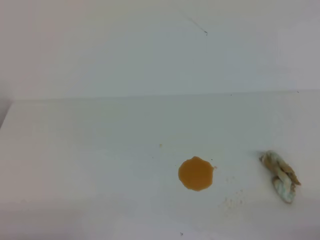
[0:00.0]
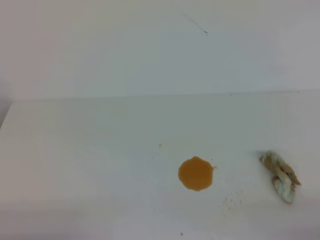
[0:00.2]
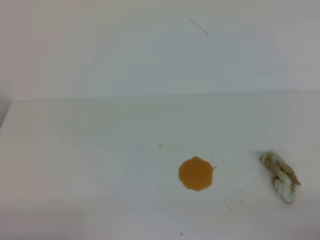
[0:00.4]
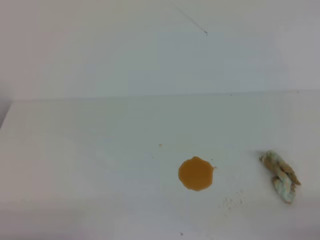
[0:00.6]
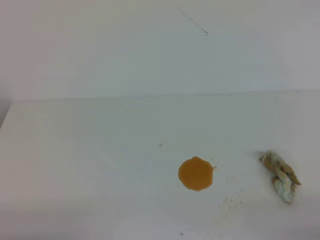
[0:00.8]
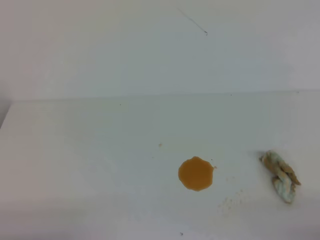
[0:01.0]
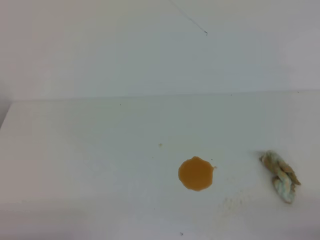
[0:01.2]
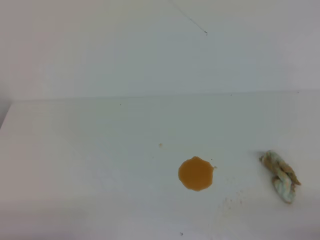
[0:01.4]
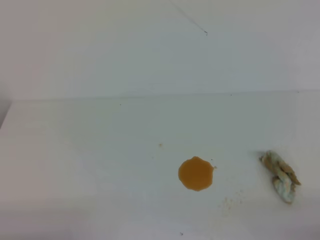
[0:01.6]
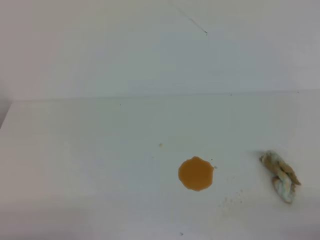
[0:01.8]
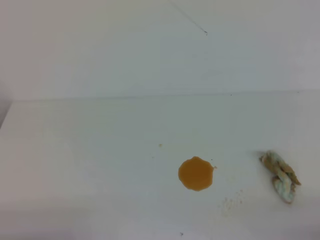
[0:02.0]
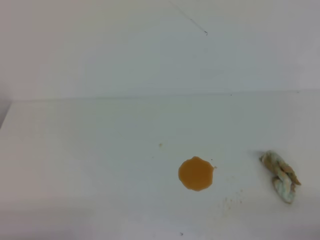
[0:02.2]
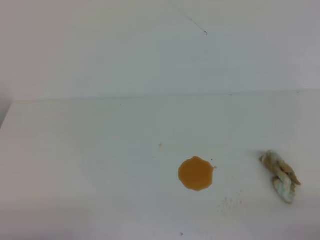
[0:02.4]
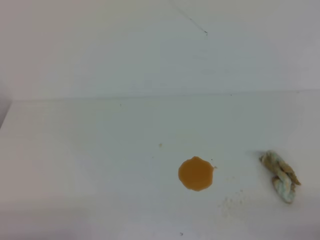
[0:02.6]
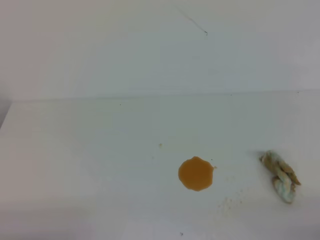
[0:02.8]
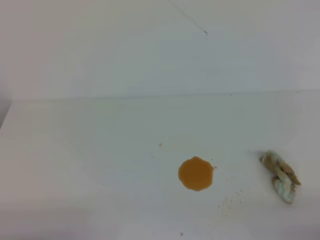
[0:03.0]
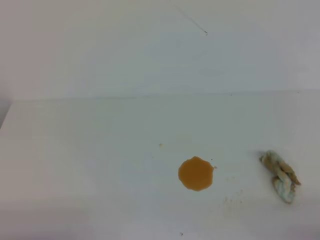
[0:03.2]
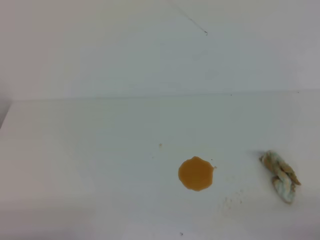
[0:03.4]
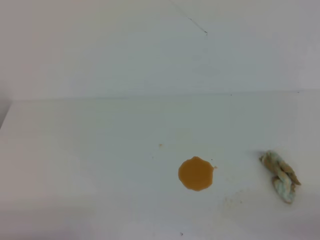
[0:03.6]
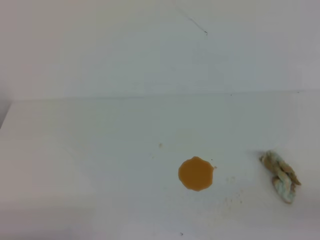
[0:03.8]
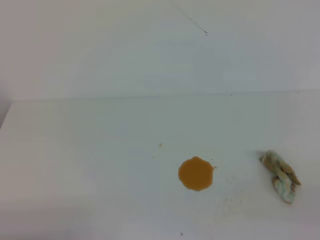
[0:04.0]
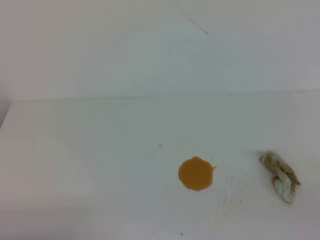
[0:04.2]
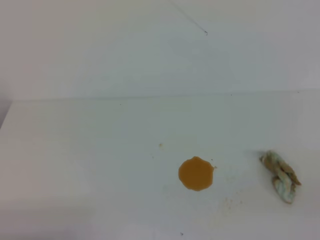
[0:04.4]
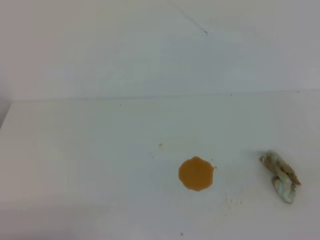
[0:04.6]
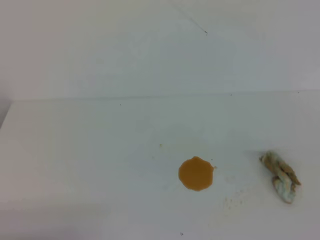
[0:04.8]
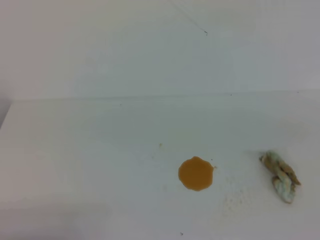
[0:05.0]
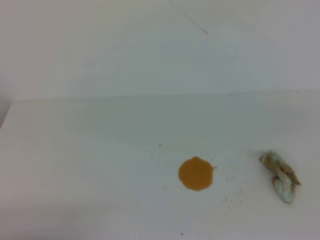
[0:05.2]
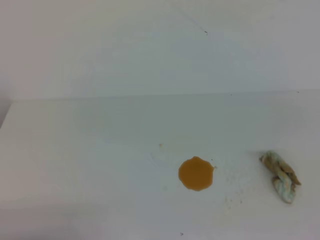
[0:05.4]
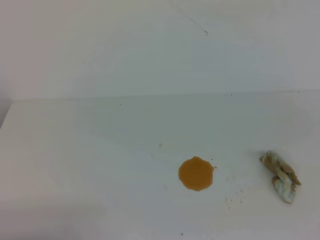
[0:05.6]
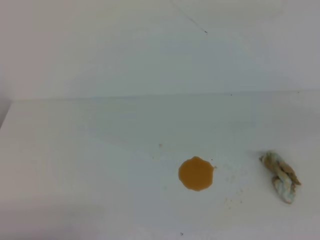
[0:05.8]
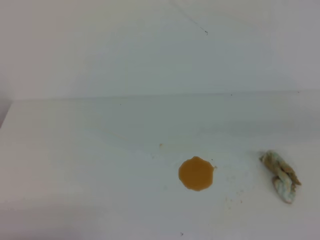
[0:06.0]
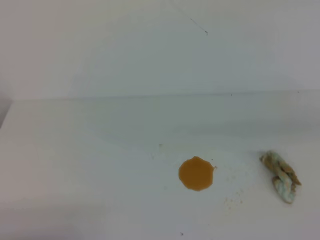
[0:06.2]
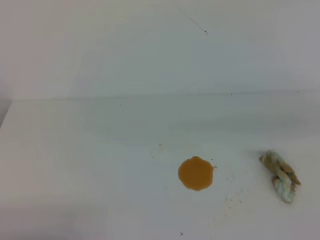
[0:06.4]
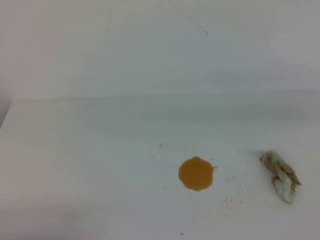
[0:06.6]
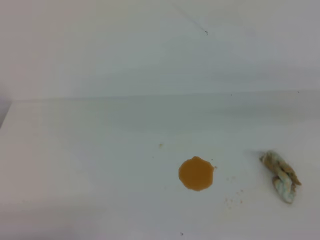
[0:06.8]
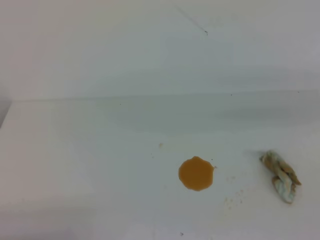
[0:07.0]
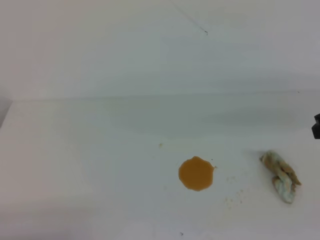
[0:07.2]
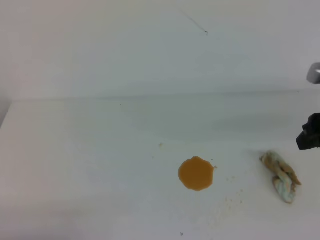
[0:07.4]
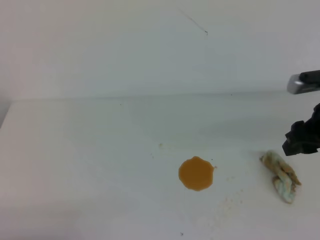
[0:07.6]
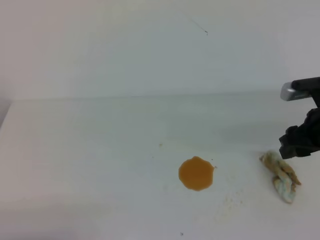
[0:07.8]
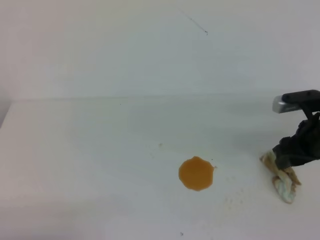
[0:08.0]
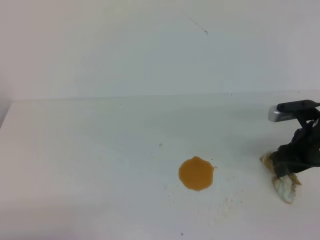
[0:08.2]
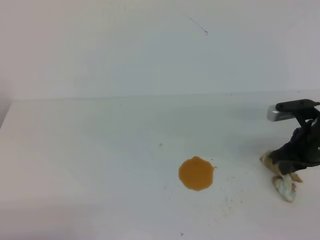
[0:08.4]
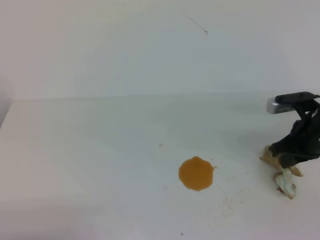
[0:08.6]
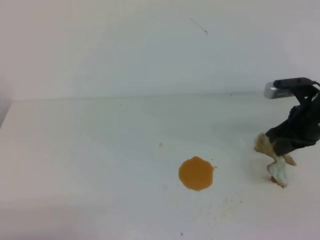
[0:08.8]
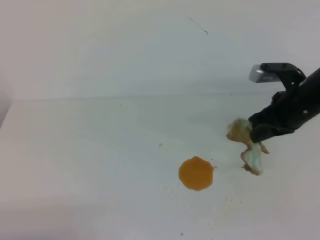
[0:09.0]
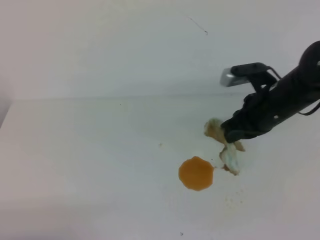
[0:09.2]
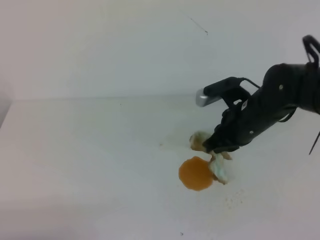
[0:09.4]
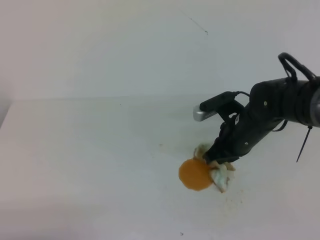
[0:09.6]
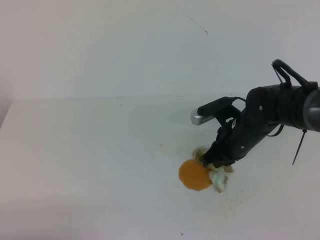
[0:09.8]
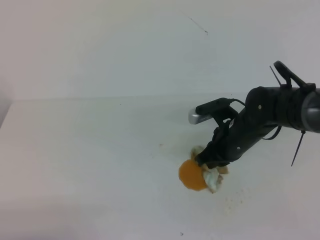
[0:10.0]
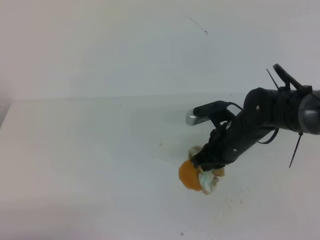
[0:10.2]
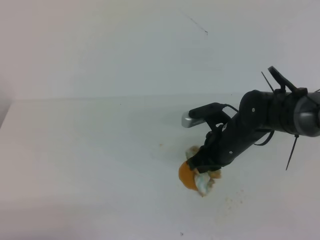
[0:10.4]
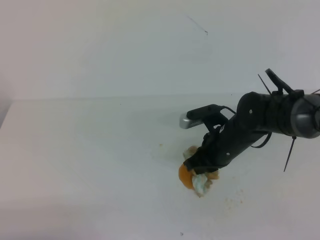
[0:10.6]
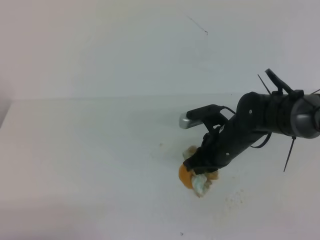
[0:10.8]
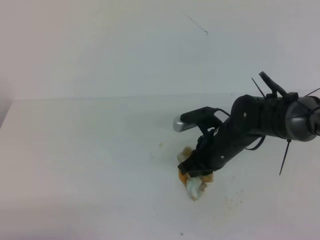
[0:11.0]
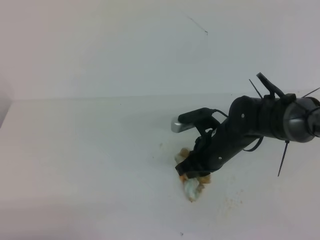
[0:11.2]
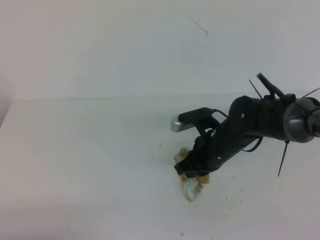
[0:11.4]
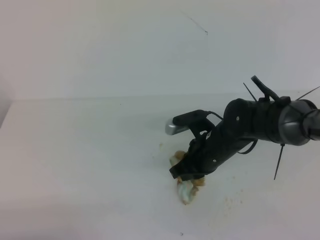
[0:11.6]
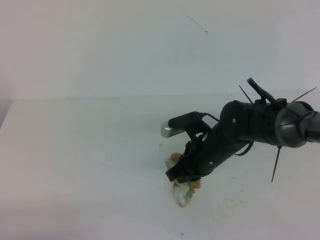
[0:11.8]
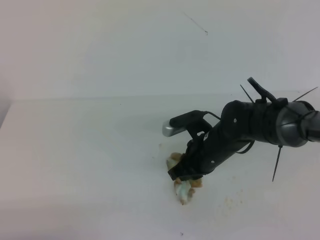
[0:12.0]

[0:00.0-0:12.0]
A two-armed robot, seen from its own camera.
0.0 to 3.0 s: Both grippers stay about where they are.
6.0 to 7.6 s: The right gripper travels forward and downward by approximately 20 cm, and opens up.
7.6 to 9.0 s: The right gripper goes some 5 cm to the left, and closes up.
9.0 to 10.4 s: The right gripper moves to the left and downward, about 15 cm.
10.4 to 12.0 s: The grippers stay close to where they were, moving slightly.

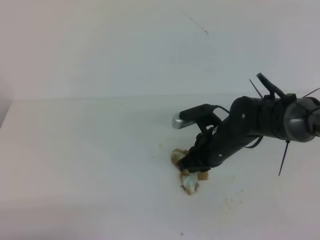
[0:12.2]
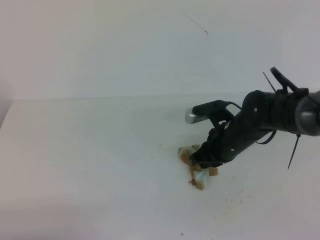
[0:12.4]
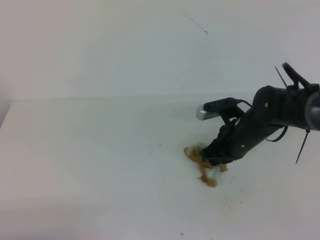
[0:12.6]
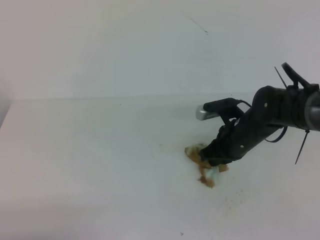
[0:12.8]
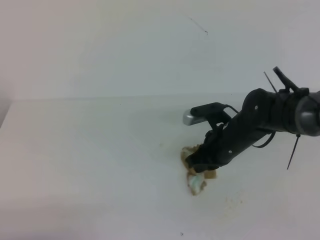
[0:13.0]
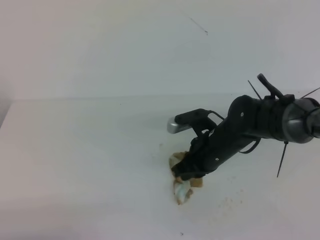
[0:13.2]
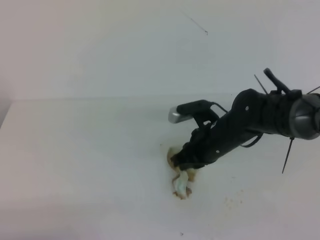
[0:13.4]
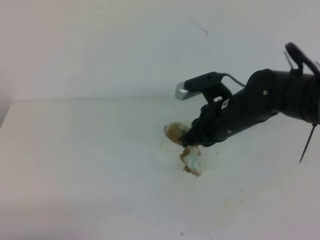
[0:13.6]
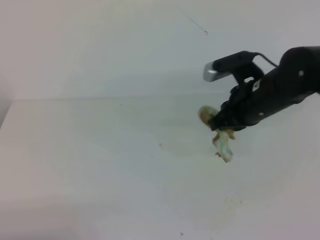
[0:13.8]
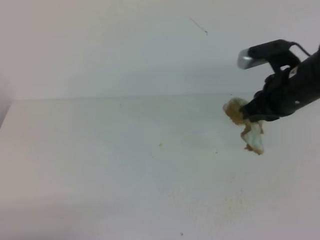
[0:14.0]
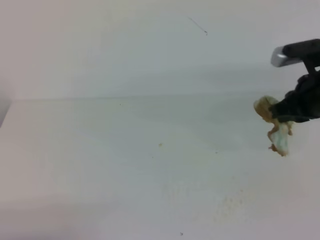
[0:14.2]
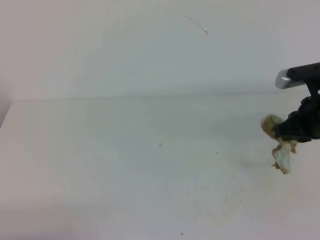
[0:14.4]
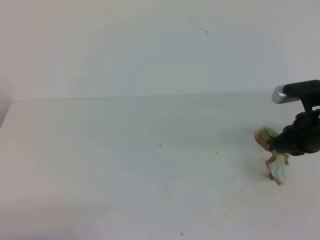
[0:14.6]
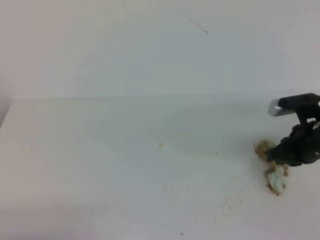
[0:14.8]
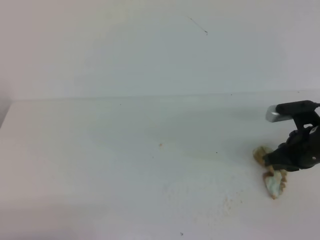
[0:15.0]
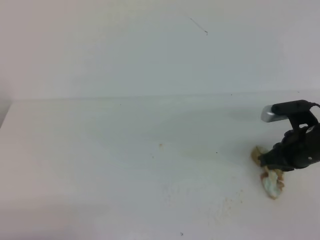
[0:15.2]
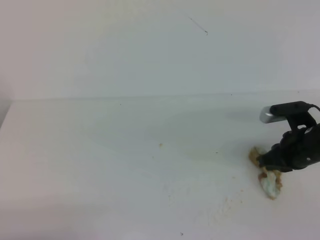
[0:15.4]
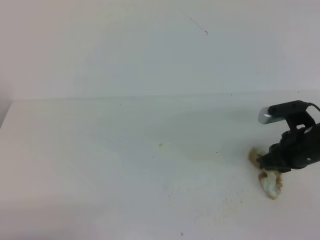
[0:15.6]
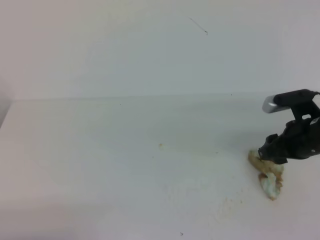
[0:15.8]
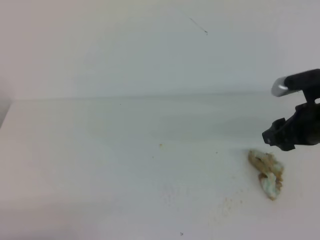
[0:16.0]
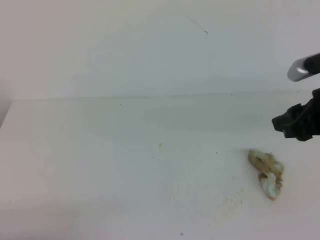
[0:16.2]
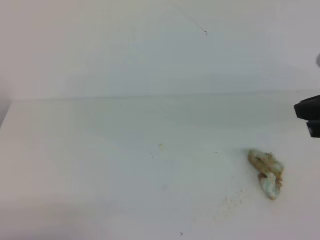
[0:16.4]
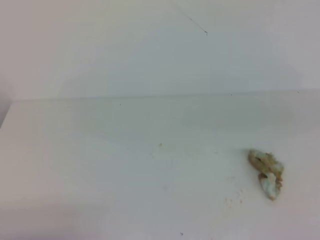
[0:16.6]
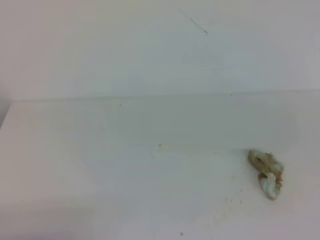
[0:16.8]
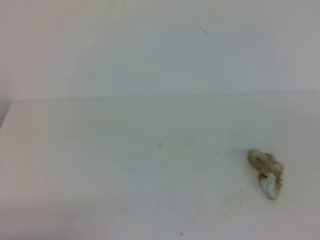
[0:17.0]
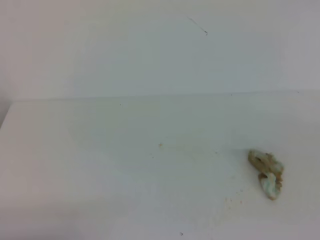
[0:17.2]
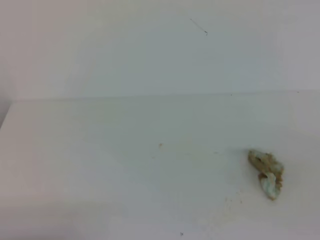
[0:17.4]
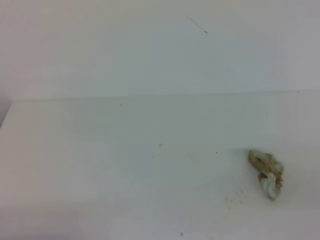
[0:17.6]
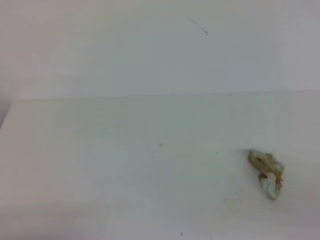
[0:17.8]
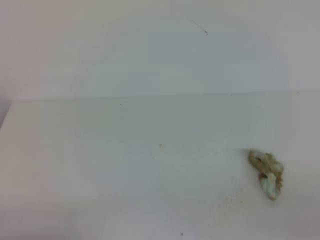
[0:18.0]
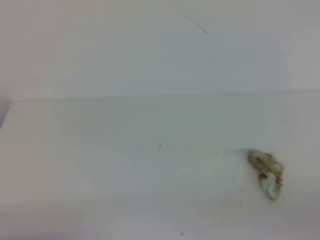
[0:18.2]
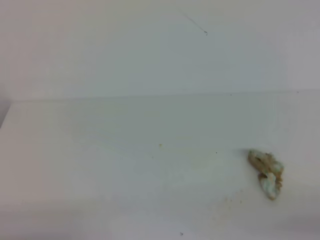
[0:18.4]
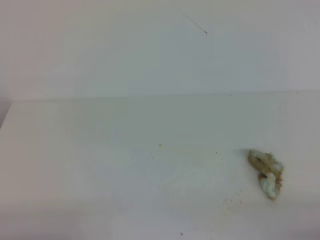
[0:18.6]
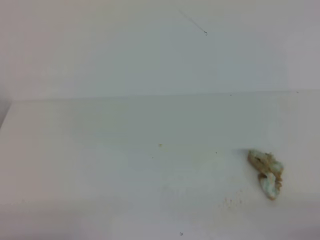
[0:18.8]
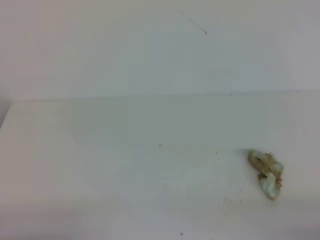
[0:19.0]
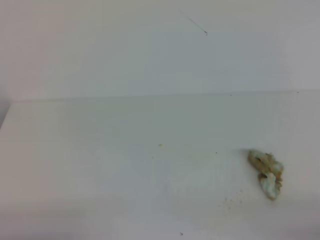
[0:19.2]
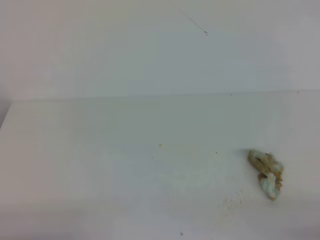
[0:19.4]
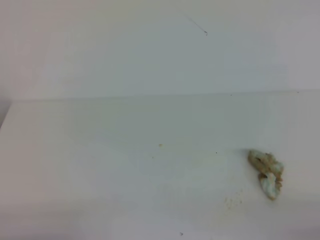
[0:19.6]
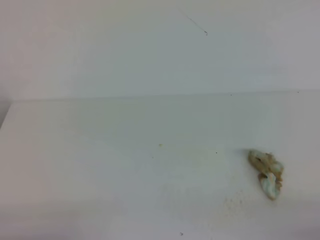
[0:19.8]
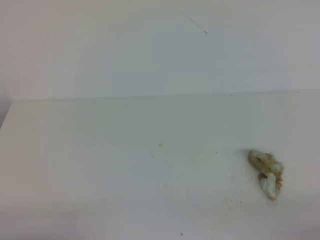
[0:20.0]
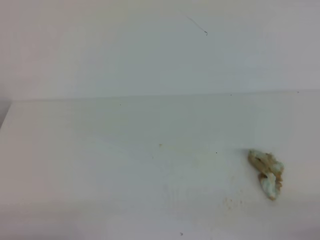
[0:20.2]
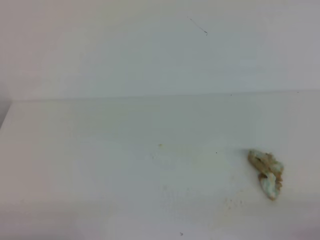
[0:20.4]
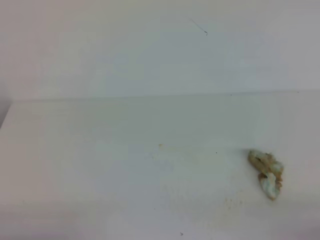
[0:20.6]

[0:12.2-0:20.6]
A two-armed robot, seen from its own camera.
12.2 to 13.6 s: The right gripper goes approximately 5 cm upward.
13.6 to 15.0 s: The right gripper moves to the right, some 15 cm.
15.0 to 16.4 s: The right gripper heads upward and backward, covering roughly 20 cm, and opens, then closes once more.
16.4 to 17.8 s: The right gripper shifts approximately 20 cm backward and downward.
19.2 to 20.6 s: Both grippers stay put.

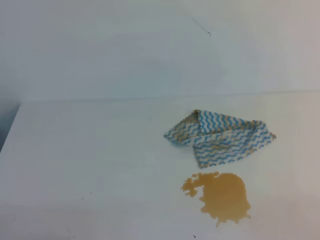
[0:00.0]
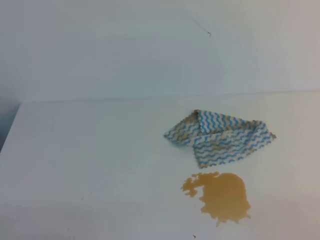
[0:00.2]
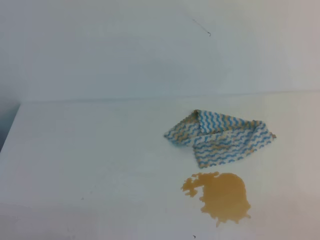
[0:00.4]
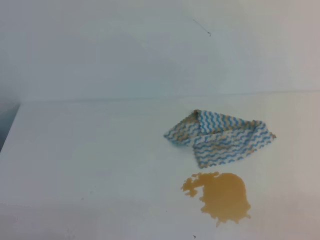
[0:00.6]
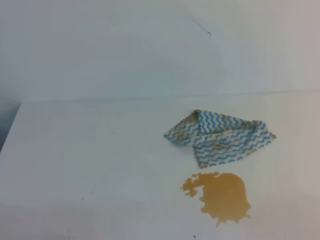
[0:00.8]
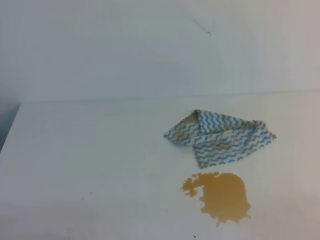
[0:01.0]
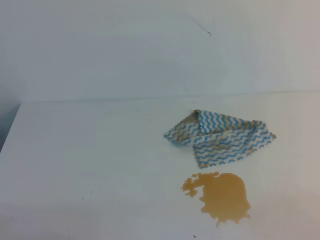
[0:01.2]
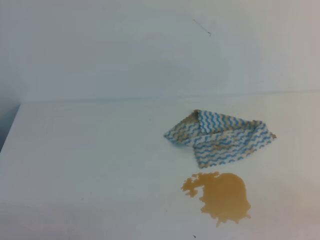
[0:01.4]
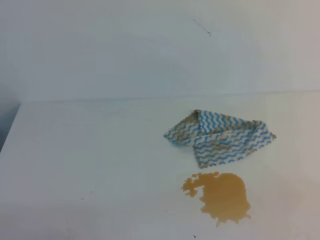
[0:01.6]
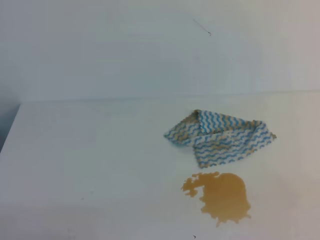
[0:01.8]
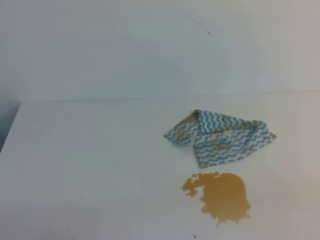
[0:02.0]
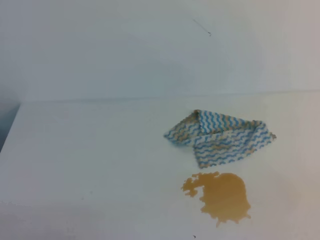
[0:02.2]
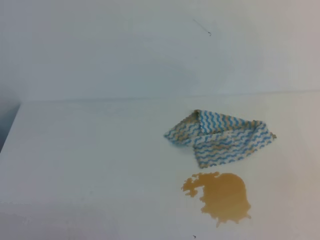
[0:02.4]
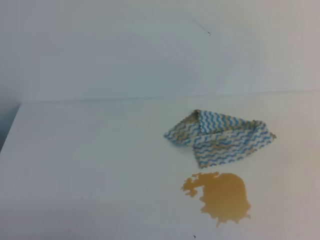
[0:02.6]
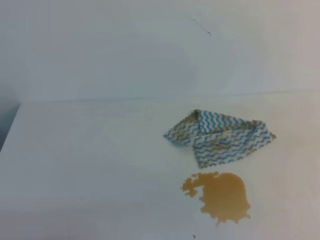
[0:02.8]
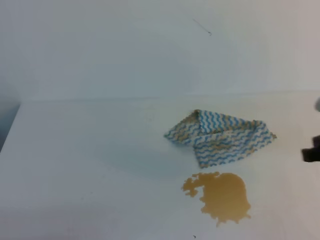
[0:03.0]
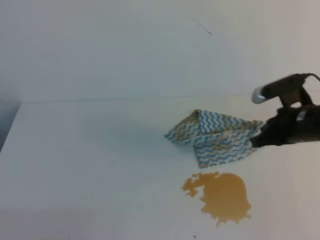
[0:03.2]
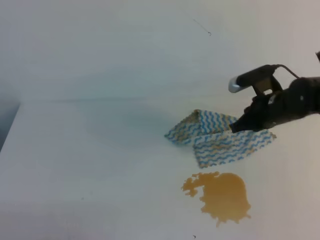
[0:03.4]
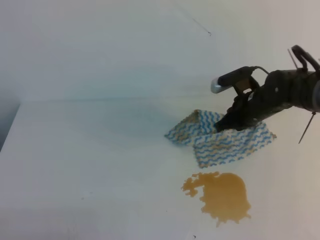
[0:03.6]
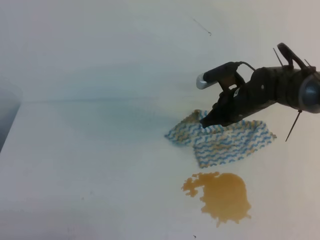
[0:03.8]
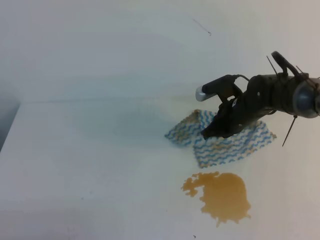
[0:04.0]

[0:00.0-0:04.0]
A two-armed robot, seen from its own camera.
2.6 to 4.0 s: The right gripper travels forward, to the left and downward by approximately 40 cm.
